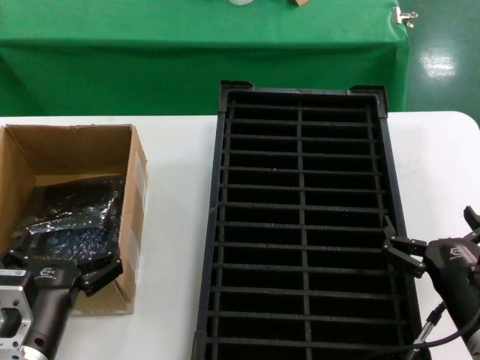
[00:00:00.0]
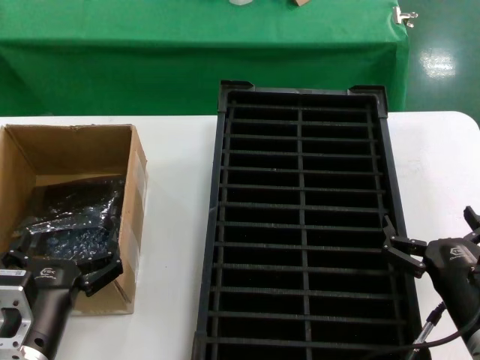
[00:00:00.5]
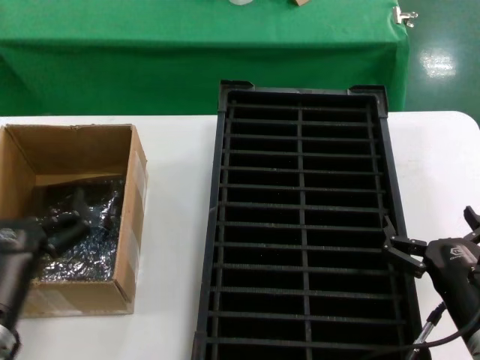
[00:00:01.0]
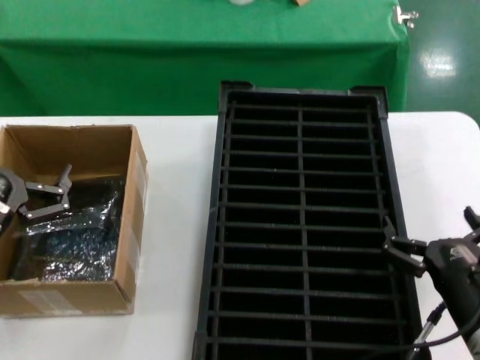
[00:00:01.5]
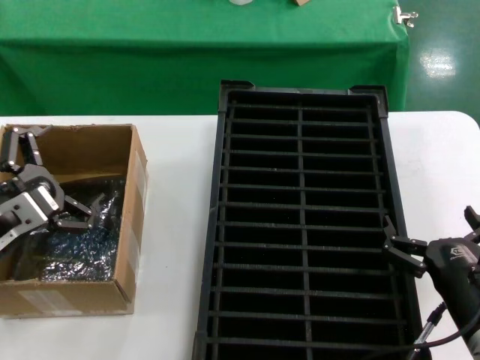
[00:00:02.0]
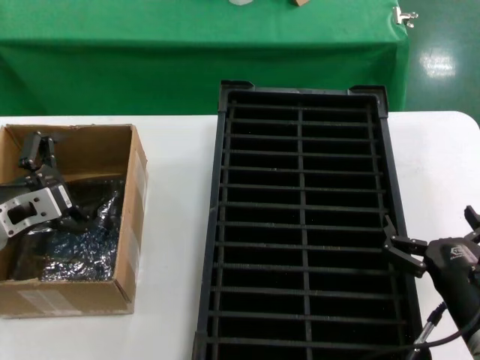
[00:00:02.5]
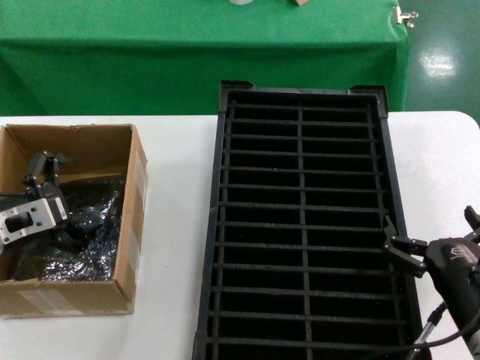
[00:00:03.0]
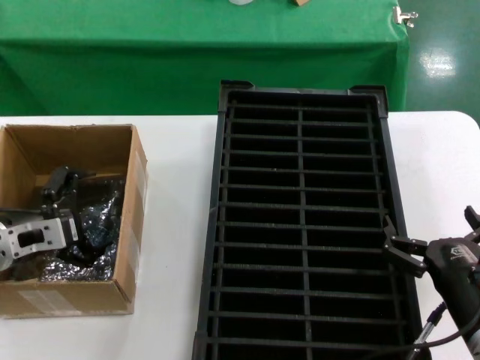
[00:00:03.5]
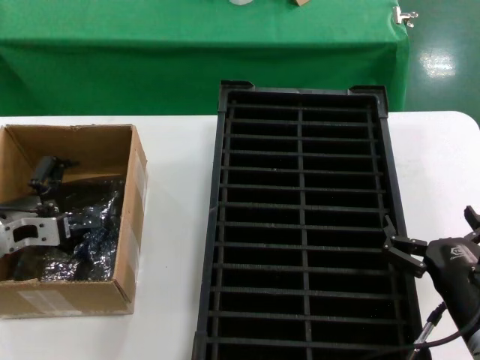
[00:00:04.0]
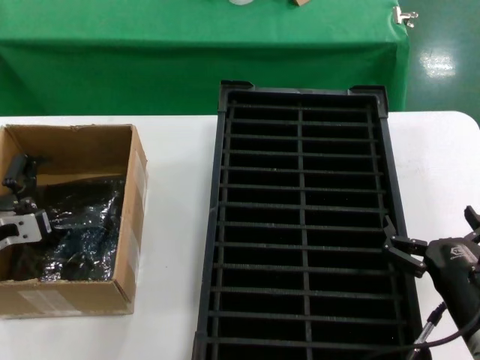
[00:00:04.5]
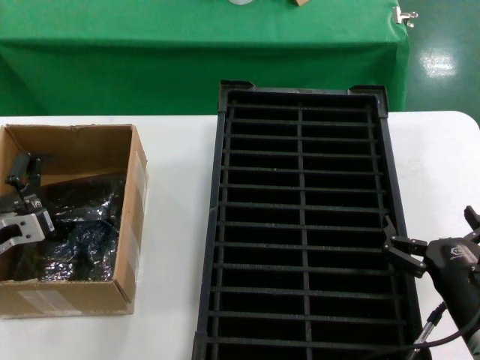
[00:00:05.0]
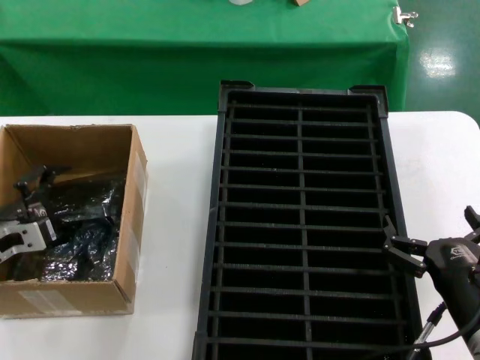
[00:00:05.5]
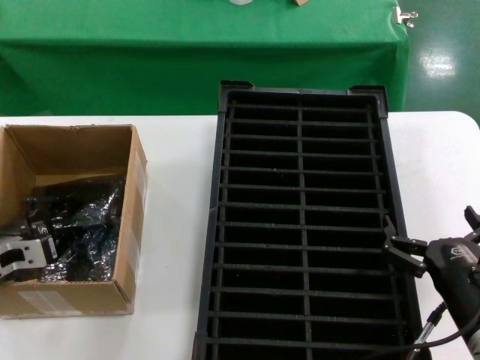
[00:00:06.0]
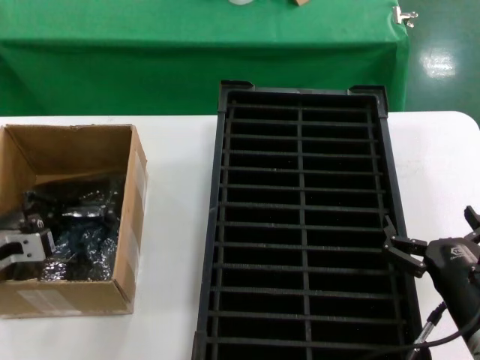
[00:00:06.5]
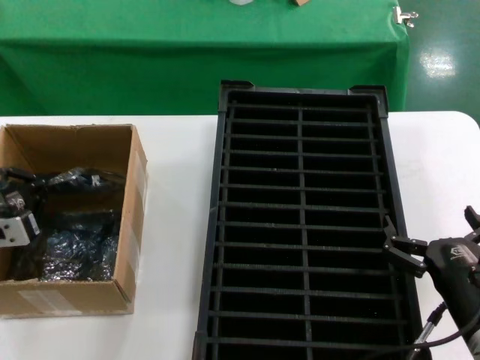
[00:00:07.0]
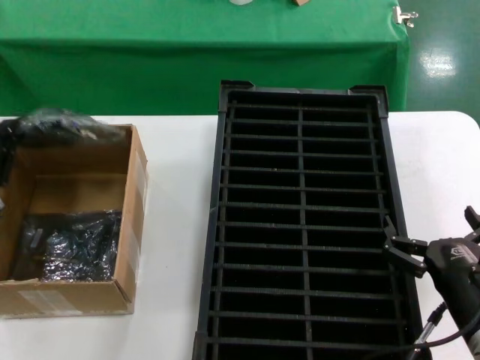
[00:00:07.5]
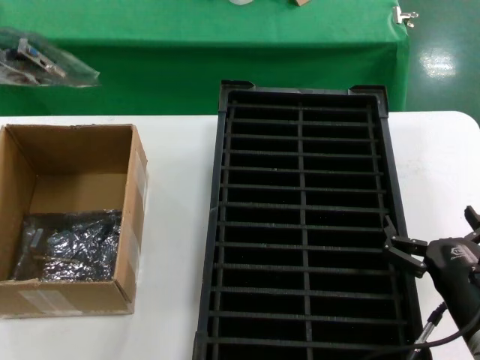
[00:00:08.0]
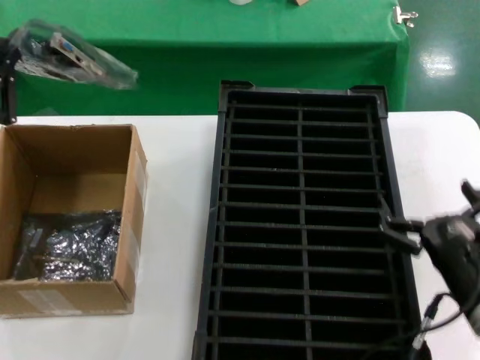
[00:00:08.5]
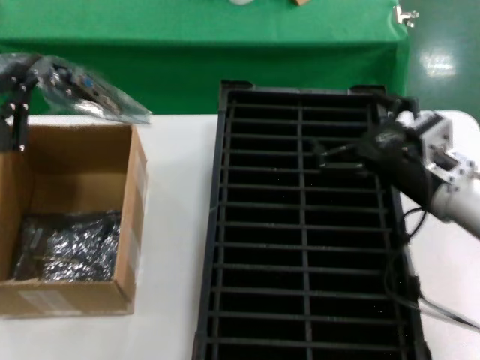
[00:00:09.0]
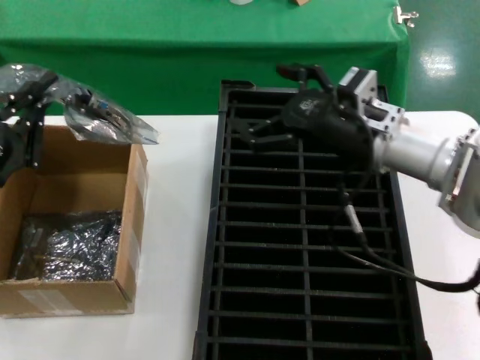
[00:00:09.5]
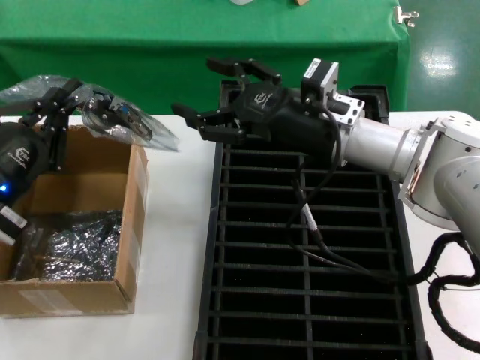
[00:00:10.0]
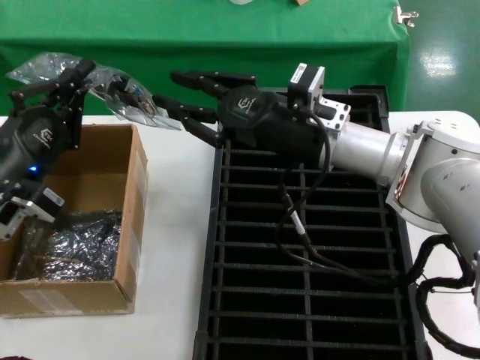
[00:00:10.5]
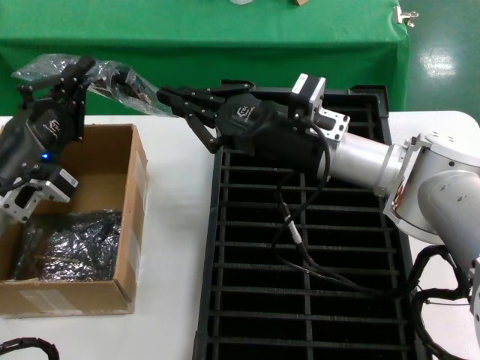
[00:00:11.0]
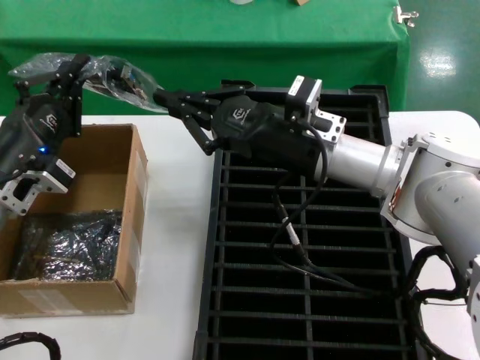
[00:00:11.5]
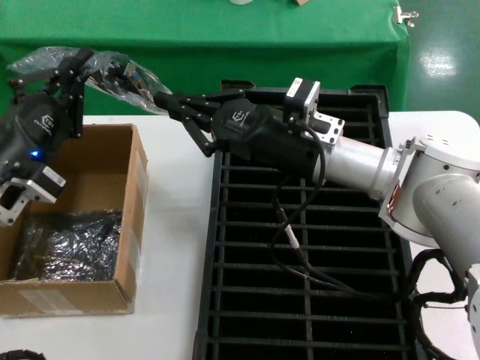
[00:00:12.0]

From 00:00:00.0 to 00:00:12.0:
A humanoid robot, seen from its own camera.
Task of the whole recording: take out graphics card from box remove packaging put into black container.
Step, from 00:00:00.0 to 00:00:06.0: Grasp the bag.
Step, from 00:00:06.5 to 00:00:08.0: Lift the bag.
From 00:00:00.0 to 00:00:02.0: The left hand goes roughly 15 cm upward, to the left and forward.
From 00:00:02.0 to 00:00:04.0: The left hand moves forward and to the left, some 10 cm.
From 00:00:04.0 to 00:00:06.0: The hands stay close to where they were, moving slightly.
From 00:00:06.0 to 00:00:08.0: The left hand goes about 10 cm upward.
From 00:00:08.0 to 00:00:10.0: The right hand travels forward, upward and to the left by roughly 30 cm. Meanwhile the left hand is displaced to the right by roughly 5 cm.
From 00:00:10.0 to 00:00:12.0: The left hand changes place by approximately 5 cm.

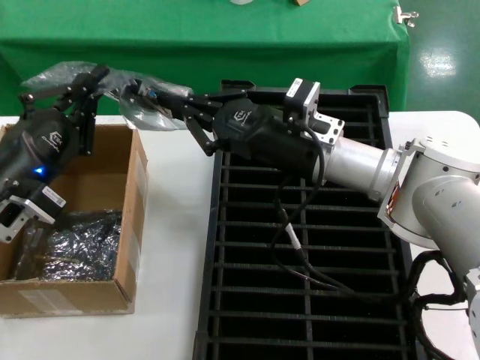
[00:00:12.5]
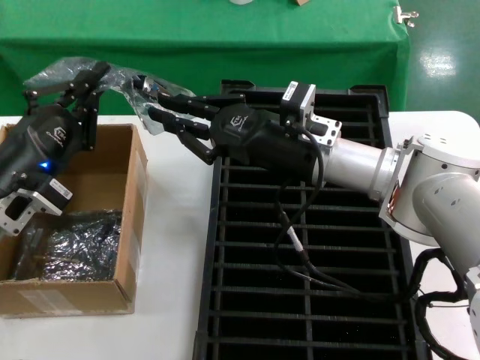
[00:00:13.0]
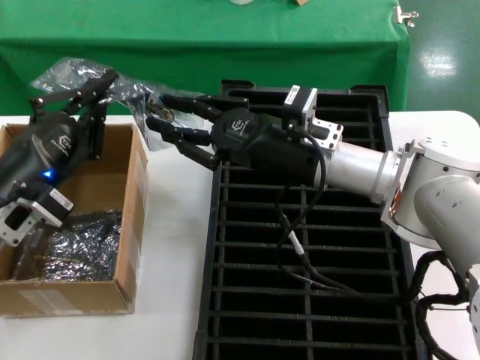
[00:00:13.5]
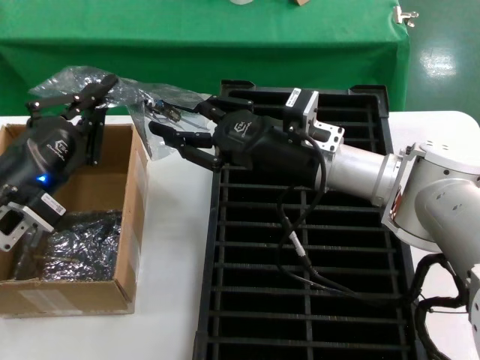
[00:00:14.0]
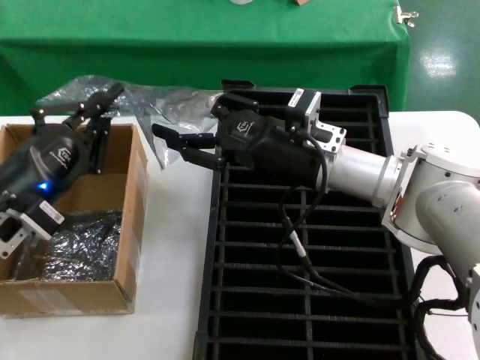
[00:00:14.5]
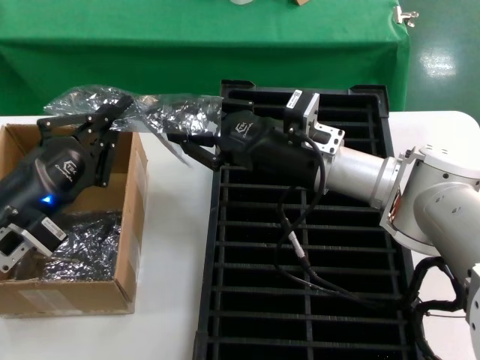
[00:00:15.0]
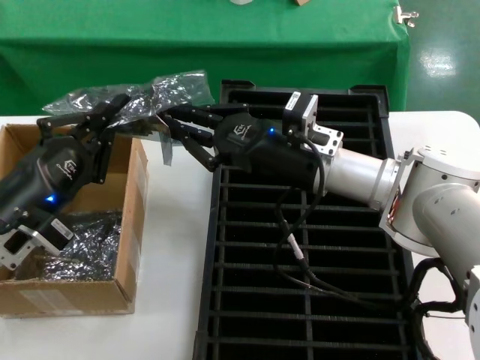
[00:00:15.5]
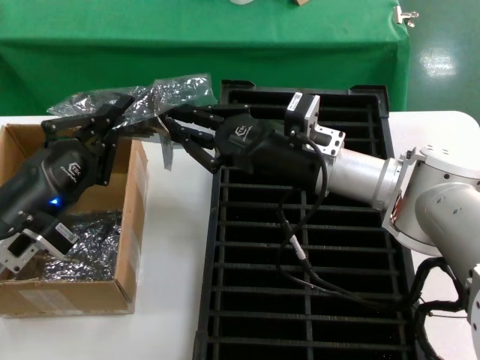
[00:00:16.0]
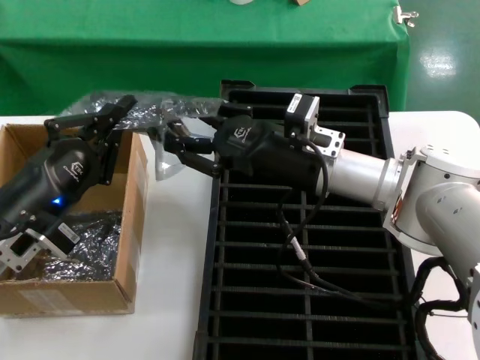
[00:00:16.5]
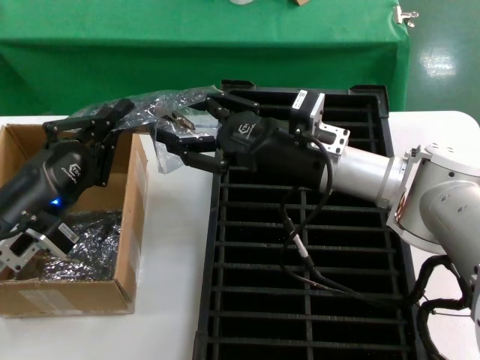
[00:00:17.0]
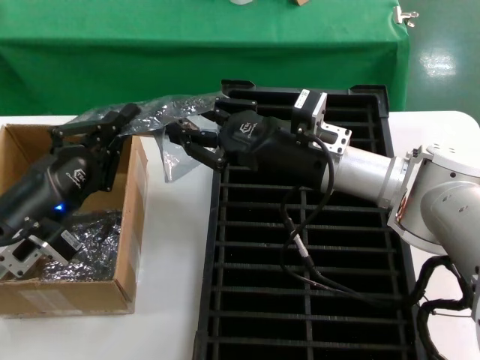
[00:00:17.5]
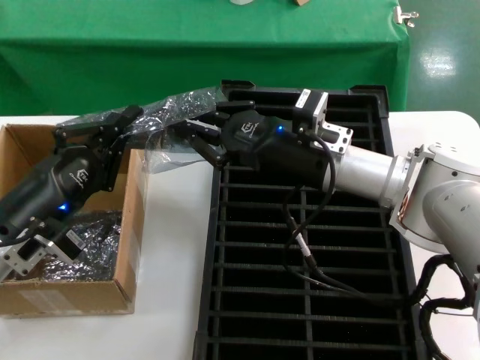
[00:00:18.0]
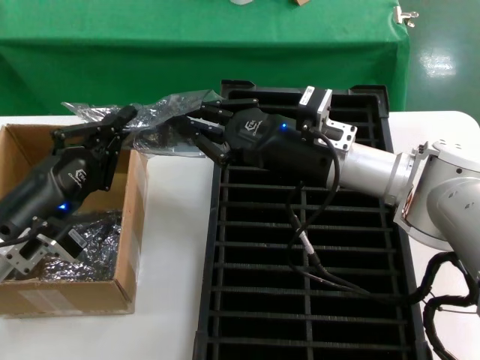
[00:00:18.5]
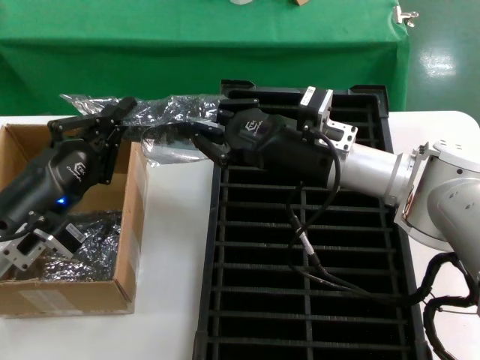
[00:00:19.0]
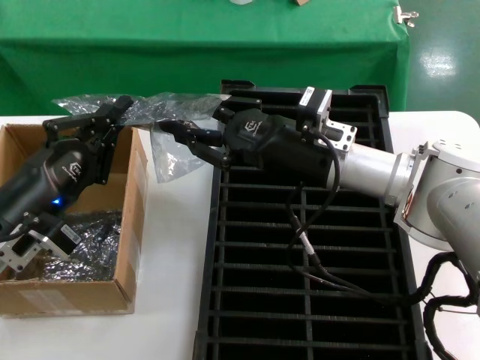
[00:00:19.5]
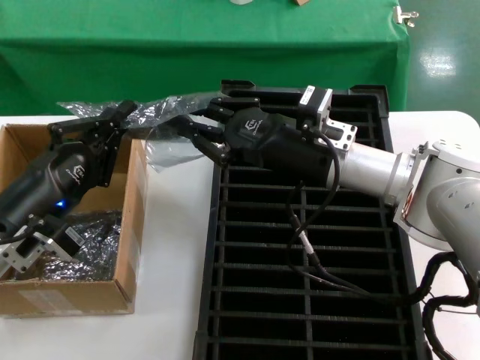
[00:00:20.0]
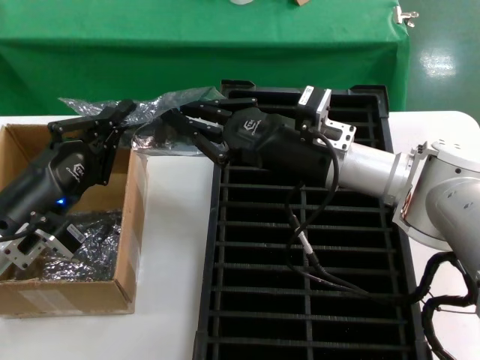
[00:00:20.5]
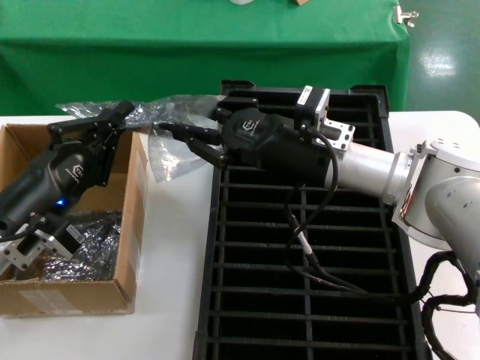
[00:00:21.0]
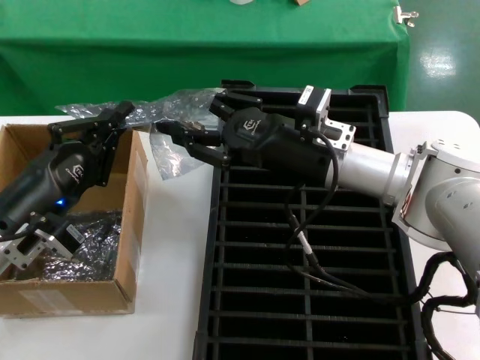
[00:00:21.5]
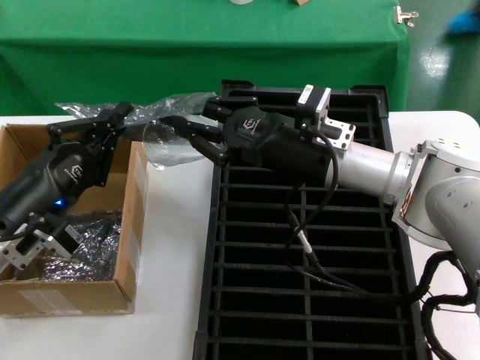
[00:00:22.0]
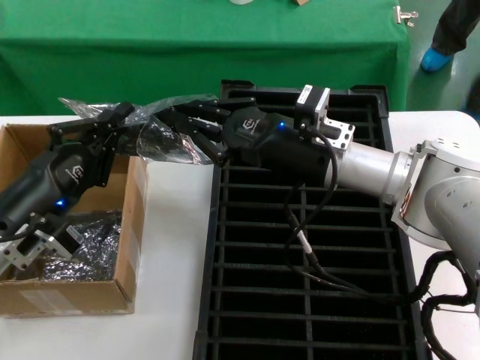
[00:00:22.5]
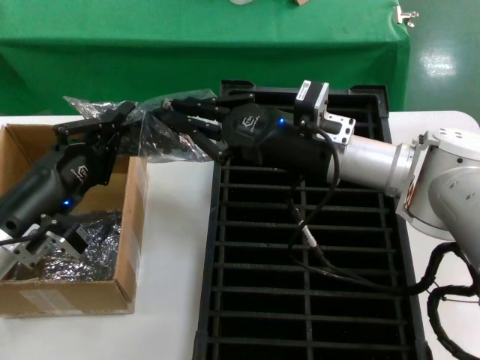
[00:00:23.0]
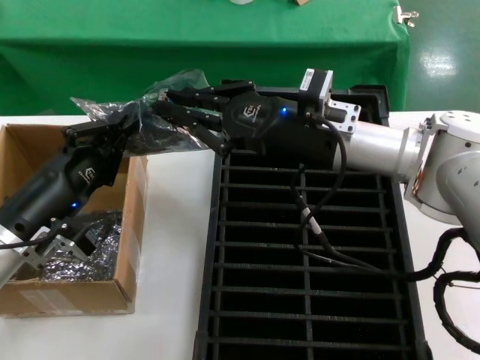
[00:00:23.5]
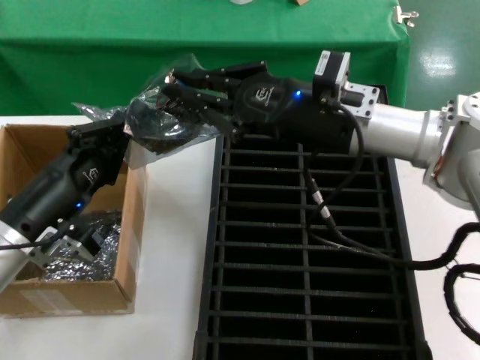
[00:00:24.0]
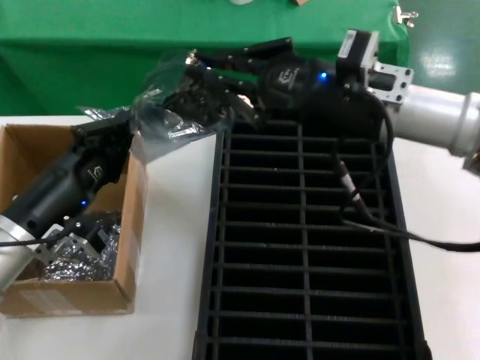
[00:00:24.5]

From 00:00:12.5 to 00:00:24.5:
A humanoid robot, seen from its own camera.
Task of the whole recording: take out graphics card from box remove packaging put into black container.
From 00:00:12.5 to 00:00:20.5: The hands make only small movements.
From 00:00:20.5 to 00:00:22.5: The two hands keep their place.
From 00:00:22.5 to 00:00:24.5: The right hand moves upward, about 10 cm.

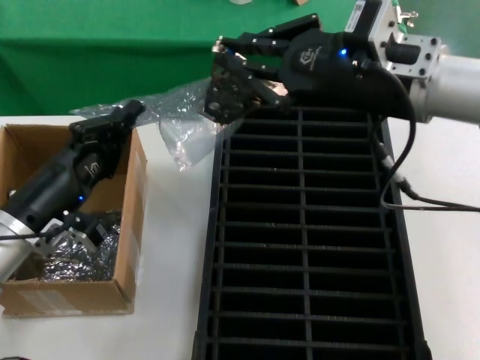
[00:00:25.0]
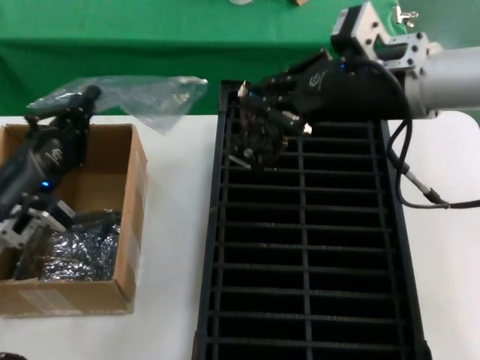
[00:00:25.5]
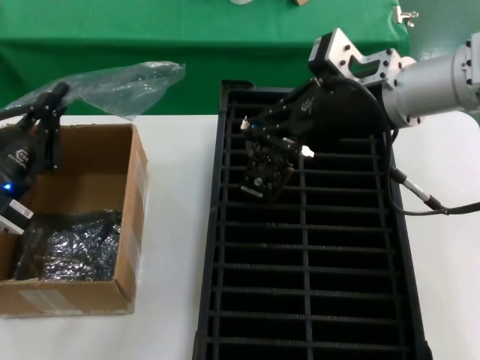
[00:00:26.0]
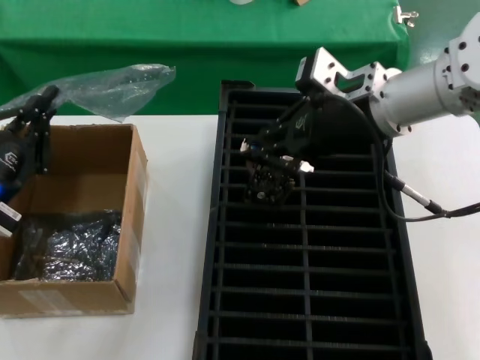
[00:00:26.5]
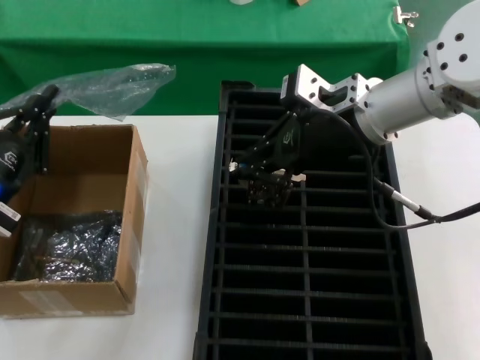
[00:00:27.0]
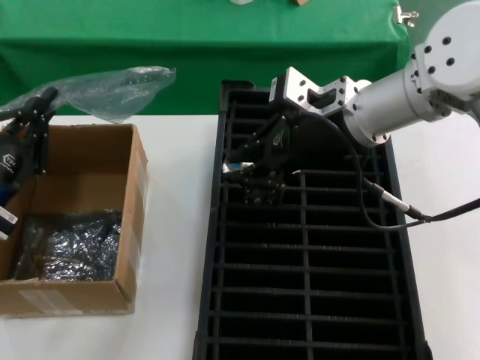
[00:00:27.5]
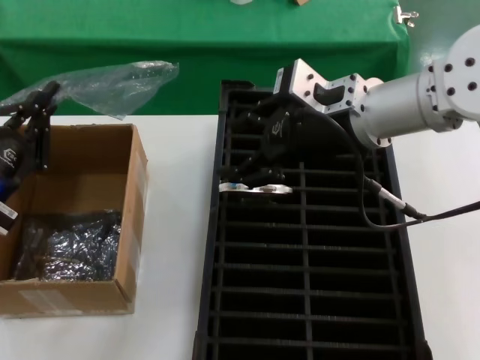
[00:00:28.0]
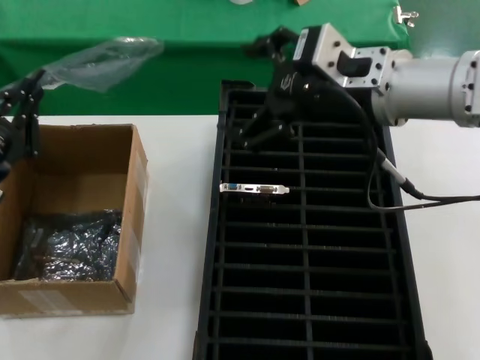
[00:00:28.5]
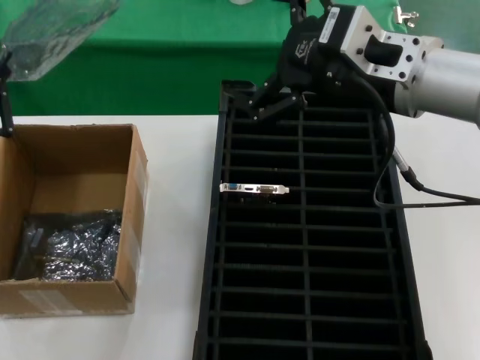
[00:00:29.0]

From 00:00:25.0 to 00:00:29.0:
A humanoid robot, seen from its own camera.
Task of the whole recording: take out graphics card from box remove packaging put into black container.
Step, from 00:00:25.5 to 00:00:28.0: Place the hard disk in the hard disk enclosure.
From 00:00:25.0 to 00:00:27.0: The left hand goes about 5 cm to the left. Meanwhile the right hand shifts about 5 cm forward.
From 00:00:27.0 to 00:00:29.0: The right hand goes about 10 cm backward.
